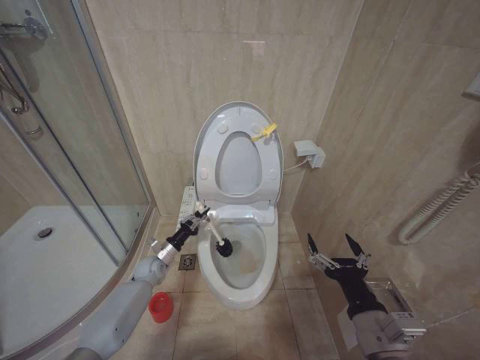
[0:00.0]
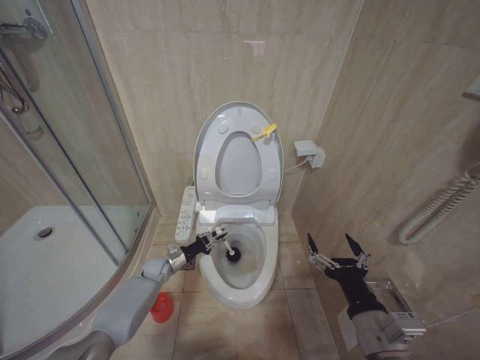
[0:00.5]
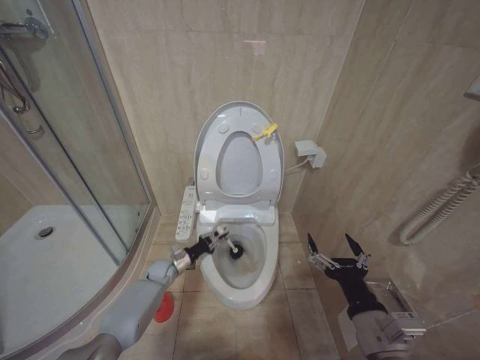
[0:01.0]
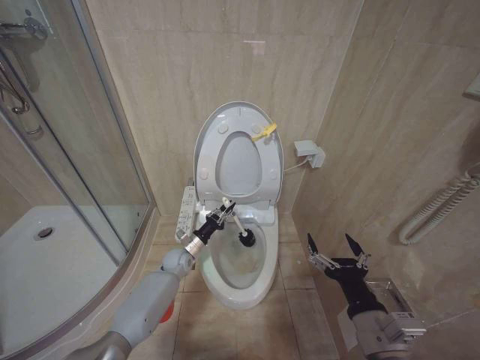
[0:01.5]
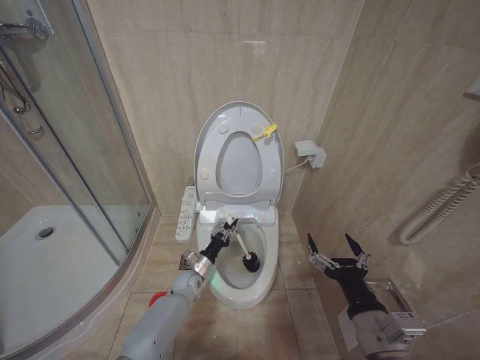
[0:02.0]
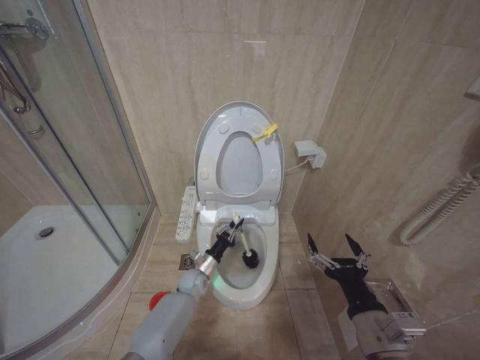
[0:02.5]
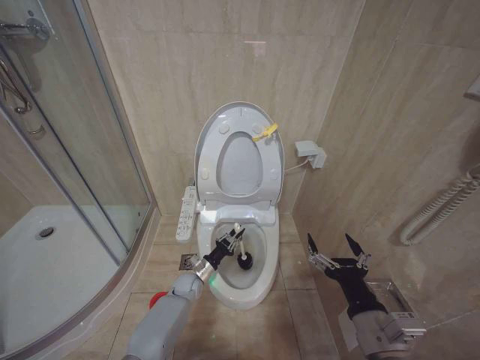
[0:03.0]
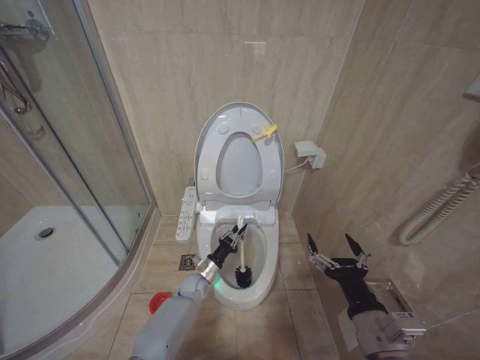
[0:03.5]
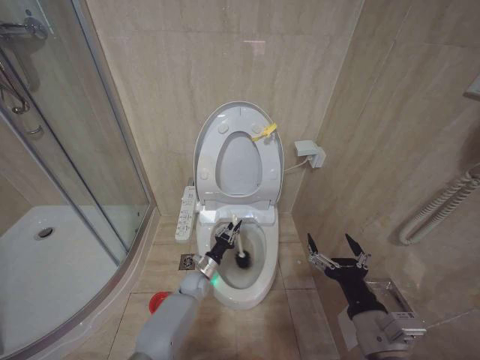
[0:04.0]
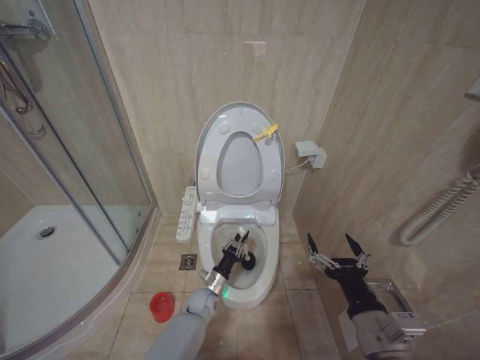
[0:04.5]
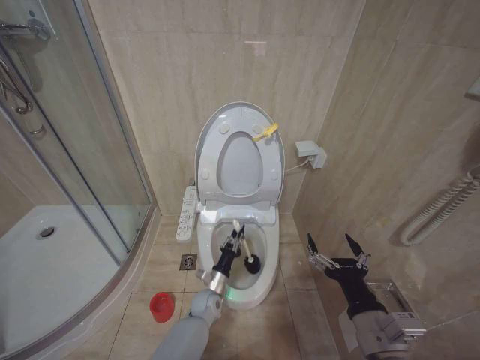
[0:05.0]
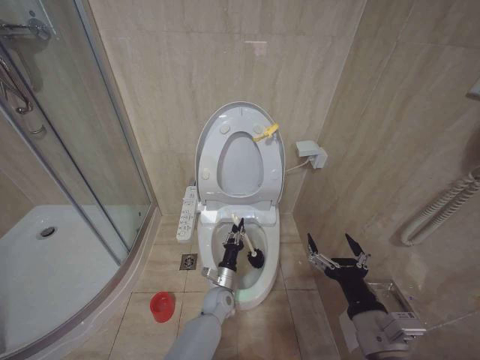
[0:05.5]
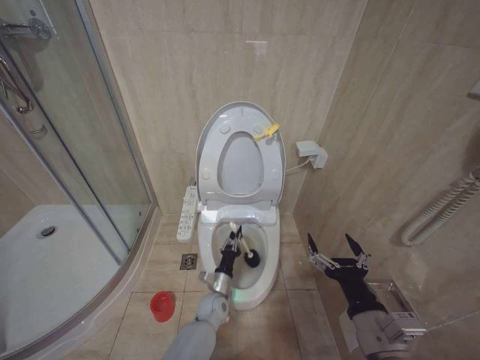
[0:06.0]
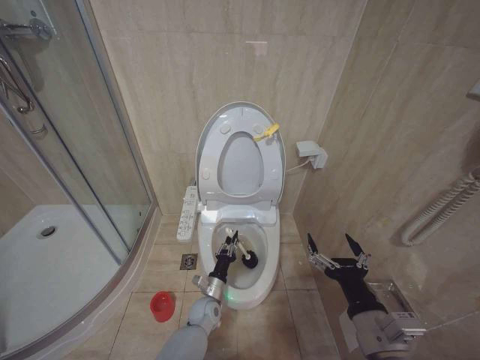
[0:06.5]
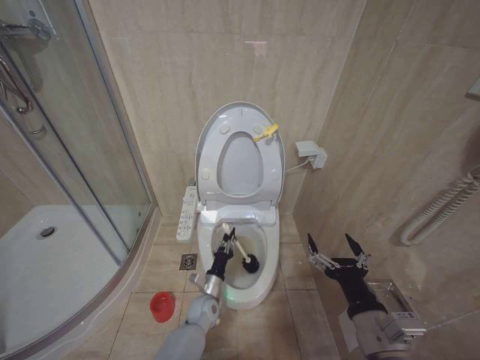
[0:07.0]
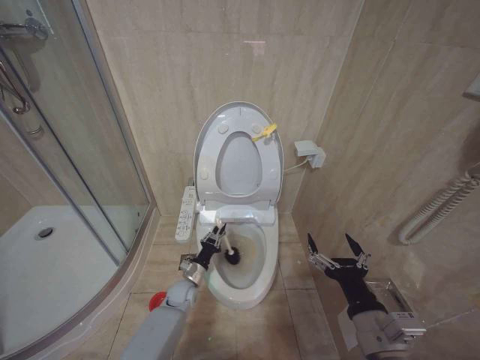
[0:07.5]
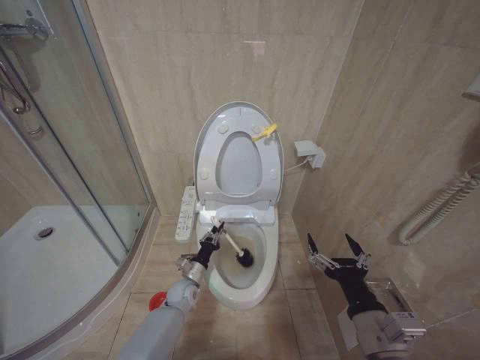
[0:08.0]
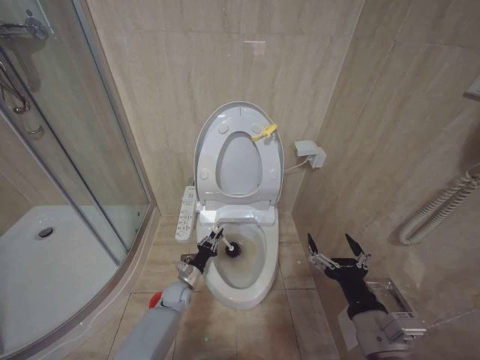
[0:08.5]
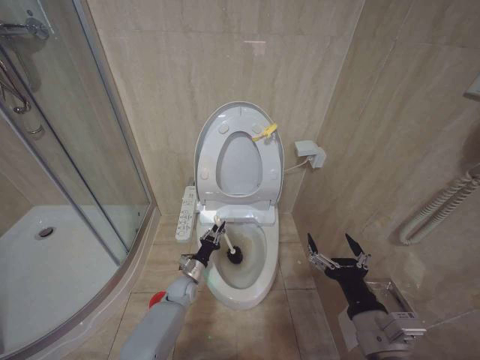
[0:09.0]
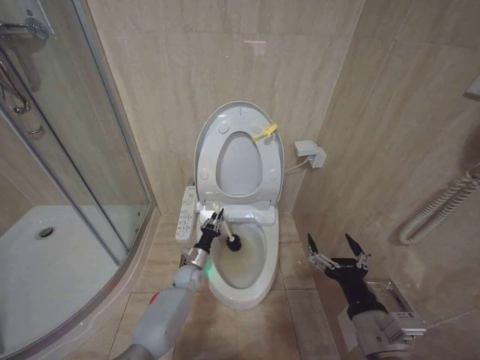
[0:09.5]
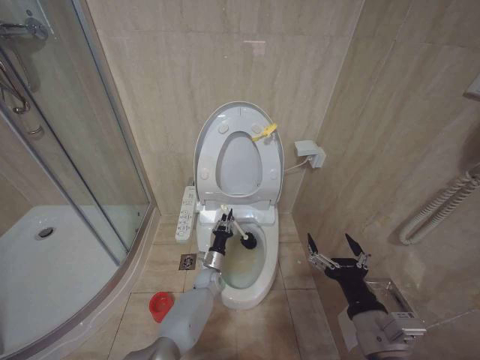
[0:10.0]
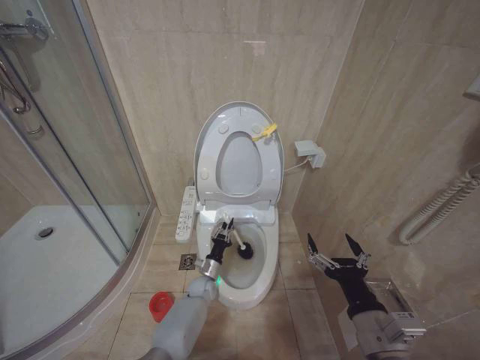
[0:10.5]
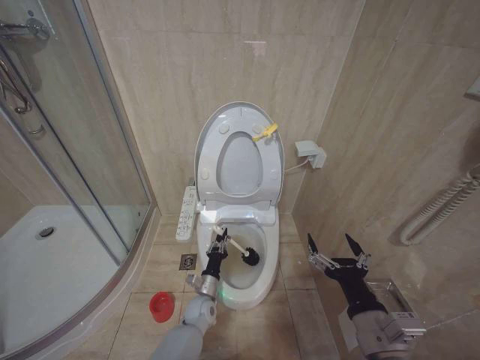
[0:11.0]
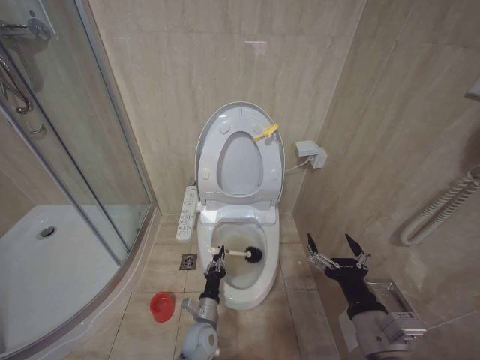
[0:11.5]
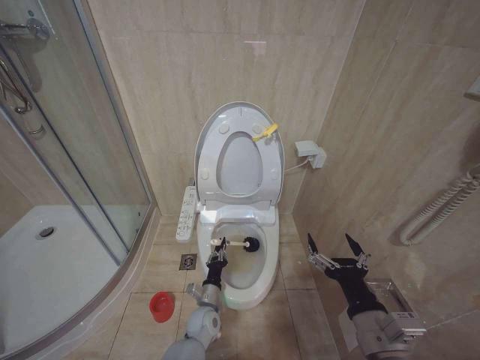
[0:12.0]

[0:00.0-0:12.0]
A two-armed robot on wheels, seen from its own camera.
Task of the whole recording: Open the toilet lid, clean the toilet bowl with a toilet brush, close the toilet lid, and flush.
0.0 to 2.0 s: The left gripper moves to the right, about 15 cm.
4.0 to 6.0 s: The left gripper travels backward and to the right by approximately 10 cm.
6.0 to 8.0 s: The left gripper travels to the left by some 10 cm.
8.0 to 10.0 s: The left gripper heads to the right and forward, covering about 10 cm.
10.0 to 12.0 s: The left gripper goes roughly 15 cm backward.

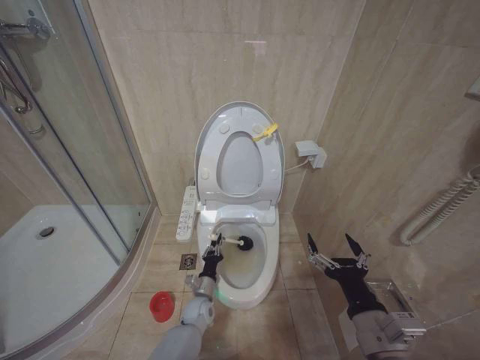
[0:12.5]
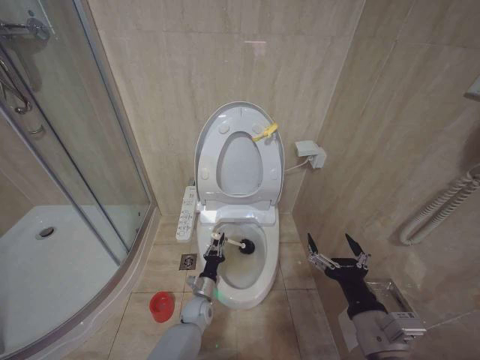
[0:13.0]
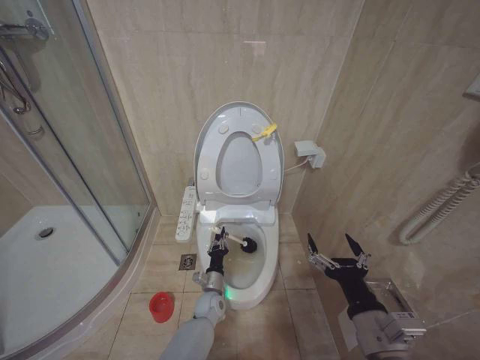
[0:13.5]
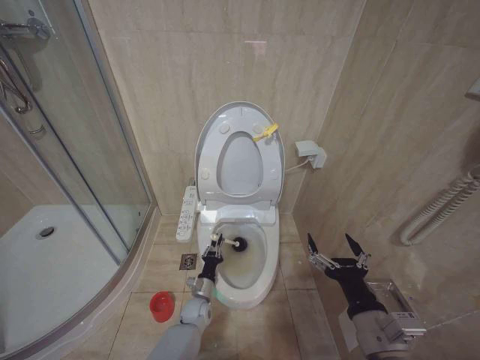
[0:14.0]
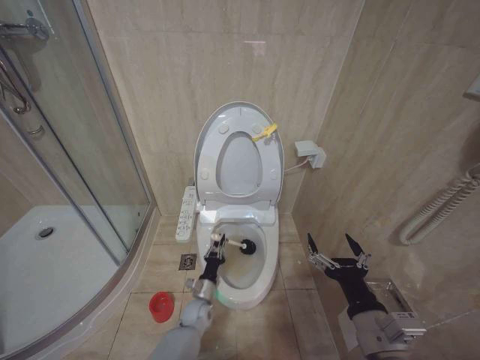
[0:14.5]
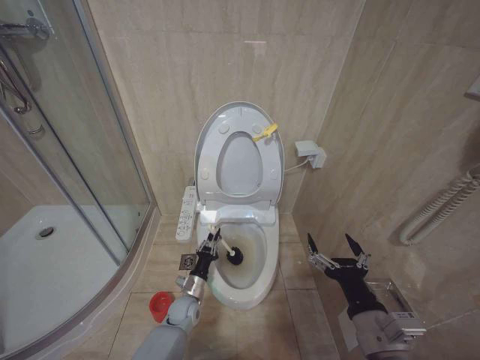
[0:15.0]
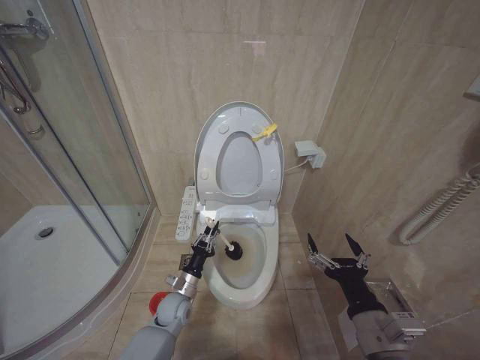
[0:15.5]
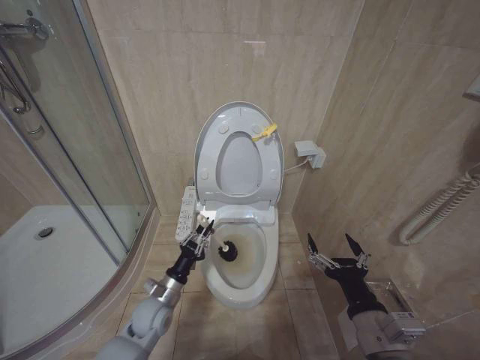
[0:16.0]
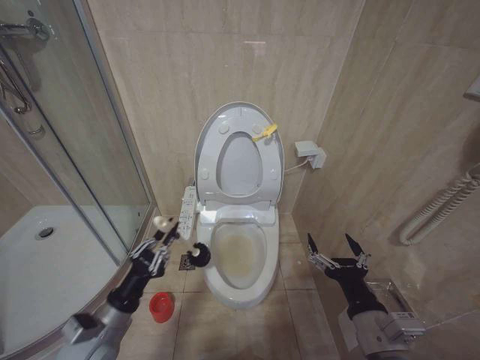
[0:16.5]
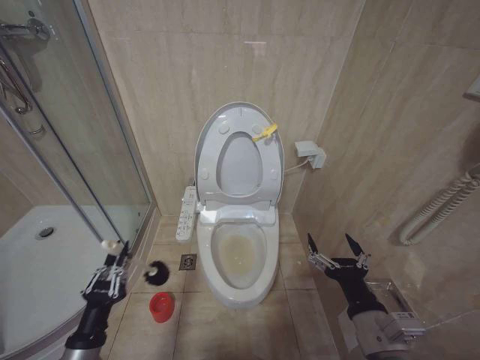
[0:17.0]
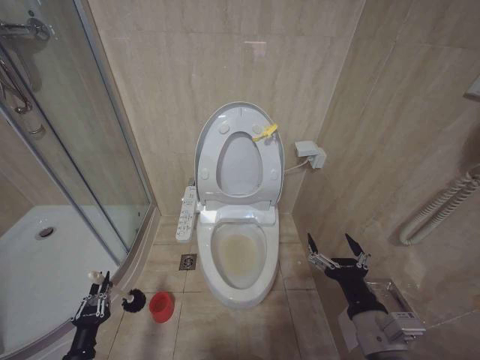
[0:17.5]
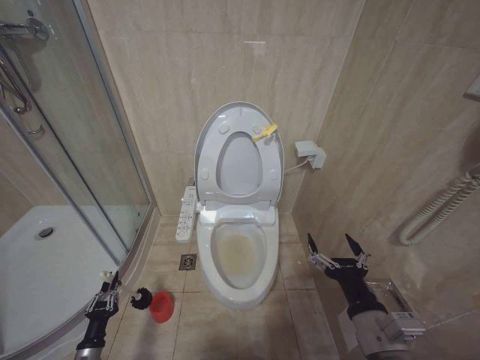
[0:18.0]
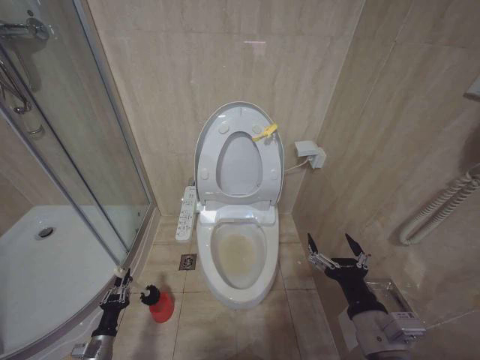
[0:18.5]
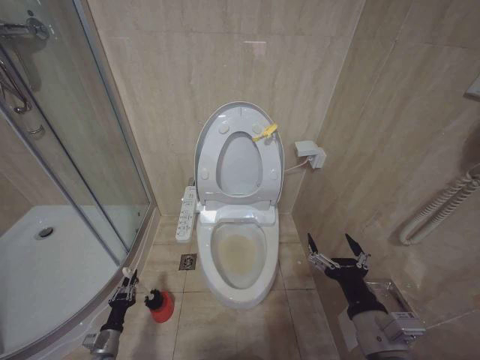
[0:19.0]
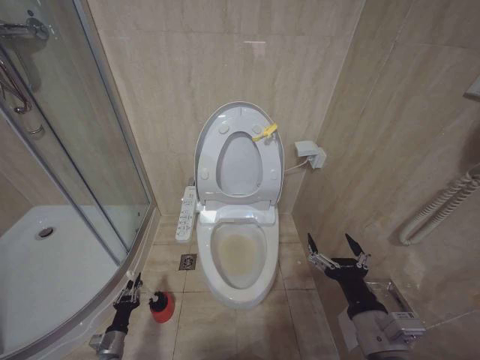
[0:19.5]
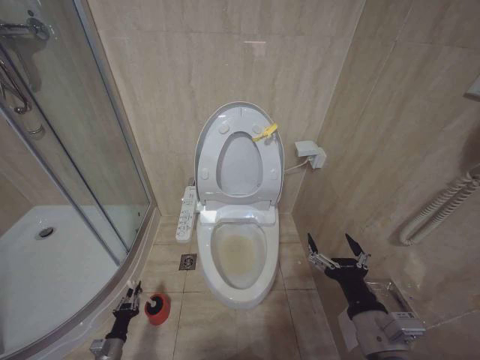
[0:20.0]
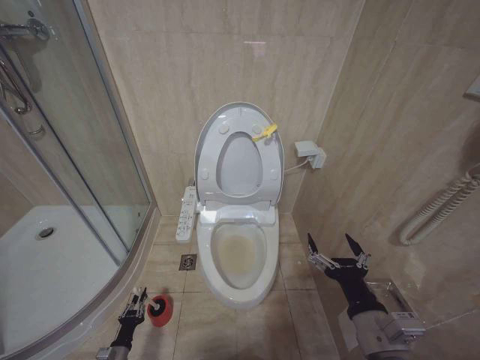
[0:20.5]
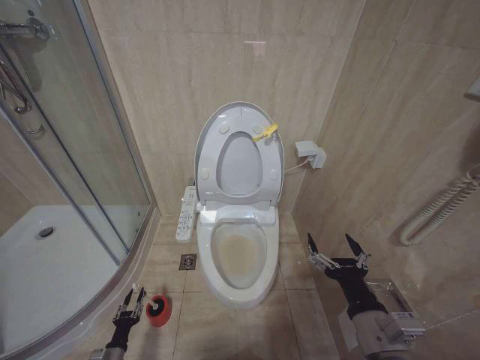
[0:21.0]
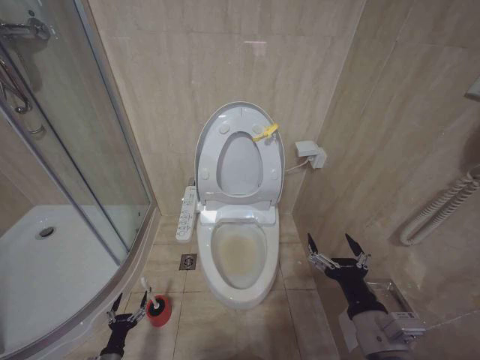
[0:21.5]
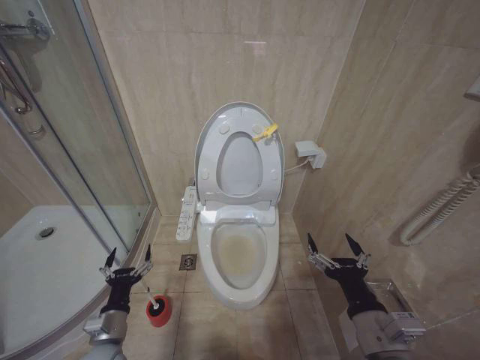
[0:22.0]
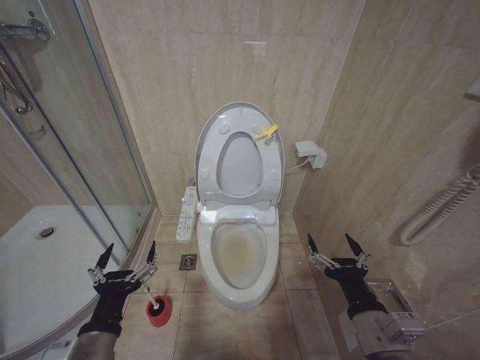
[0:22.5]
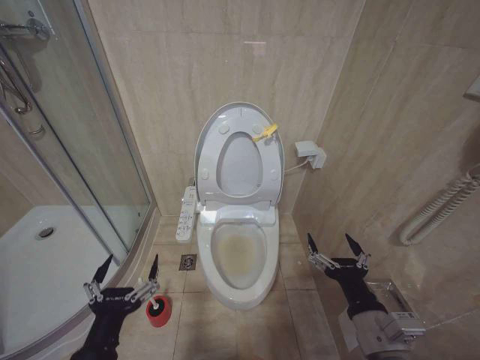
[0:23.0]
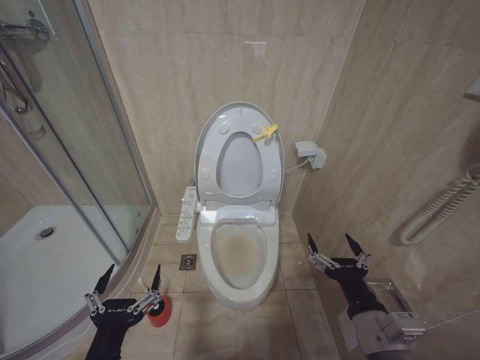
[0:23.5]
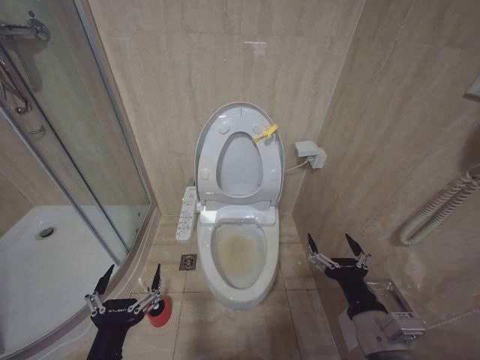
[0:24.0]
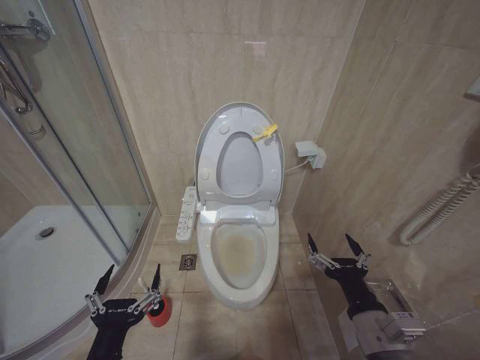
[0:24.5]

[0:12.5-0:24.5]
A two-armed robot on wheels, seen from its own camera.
Task of the whole recording: Open the toilet lid, clean the toilet bowl with a toilet brush, close the toilet lid, and flush.
14.5 to 16.5 s: The left gripper goes roughly 30 cm upward, to the left and backward.
16.5 to 18.5 s: The left gripper shifts about 25 cm downward and to the left.
18.5 to 20.5 s: The left gripper moves downward, roughly 10 cm.
20.5 to 22.5 s: The left gripper travels upward by approximately 40 cm, and opens its fingers.
22.5 to 24.5 s: The left gripper moves backward, some 5 cm.

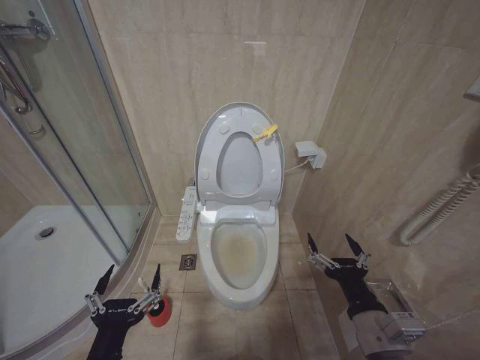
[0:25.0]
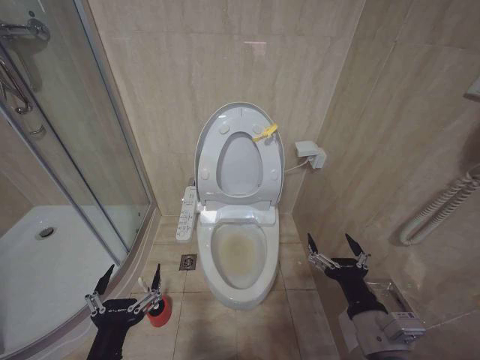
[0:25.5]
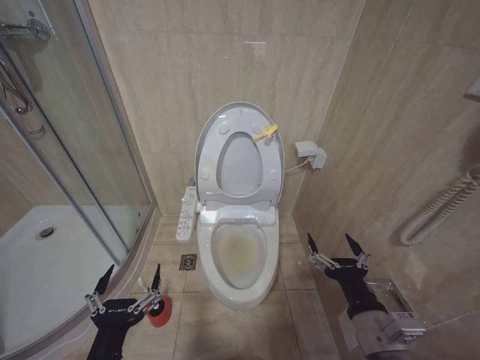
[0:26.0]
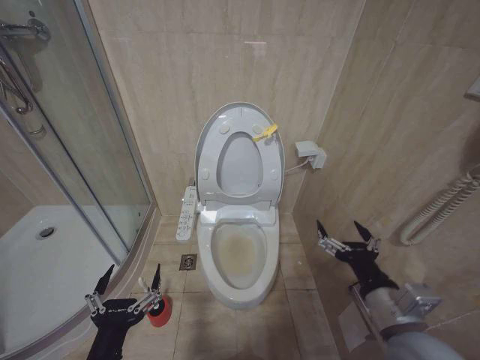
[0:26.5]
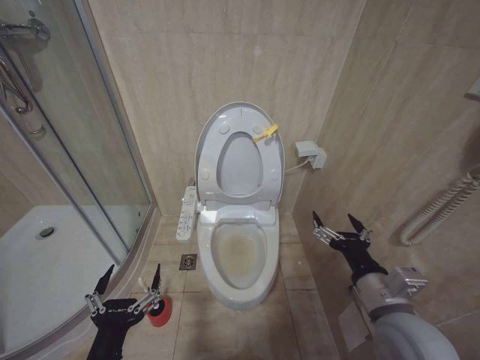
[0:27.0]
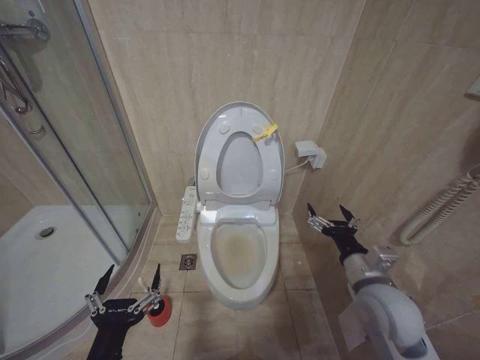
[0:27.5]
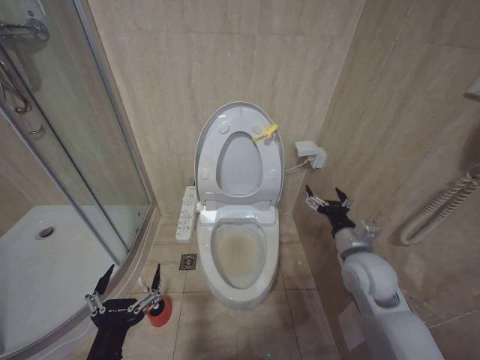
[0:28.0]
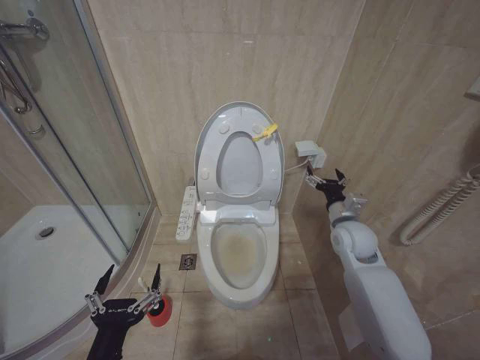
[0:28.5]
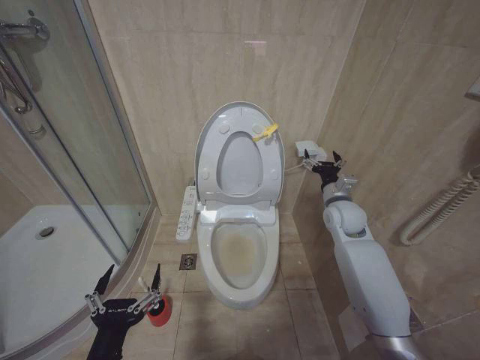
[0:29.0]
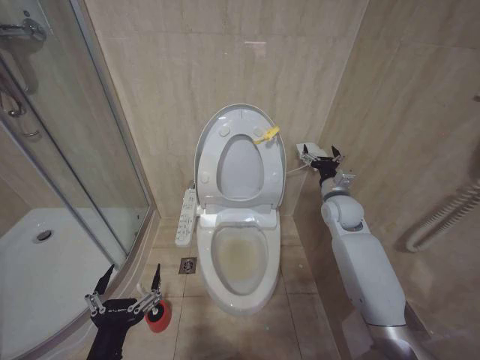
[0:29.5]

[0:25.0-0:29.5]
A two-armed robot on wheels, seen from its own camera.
Task of the whole recording: Open the toilet lid, clean the toilet bowl with a toilet brush, close the toilet lid, and flush.
25.0 to 27.0 s: The right gripper moves approximately 5 cm.
27.0 to 29.5 s: The right gripper travels forward by roughly 30 cm.
